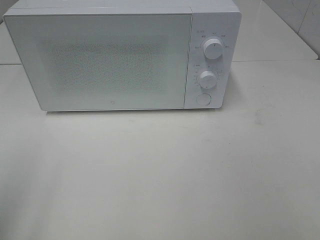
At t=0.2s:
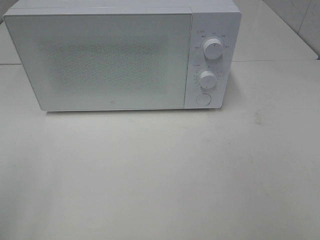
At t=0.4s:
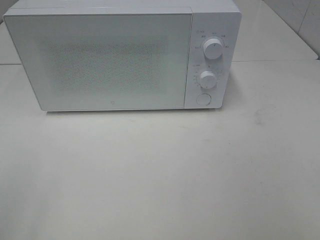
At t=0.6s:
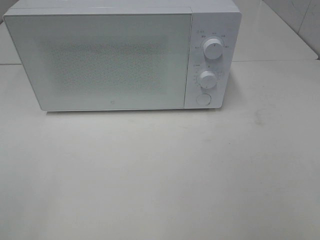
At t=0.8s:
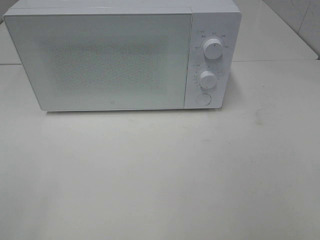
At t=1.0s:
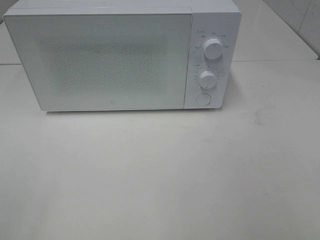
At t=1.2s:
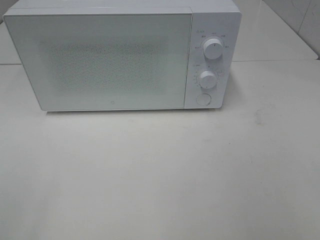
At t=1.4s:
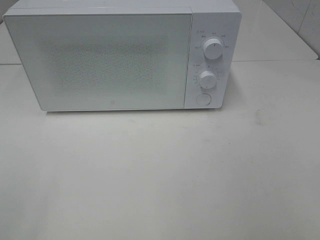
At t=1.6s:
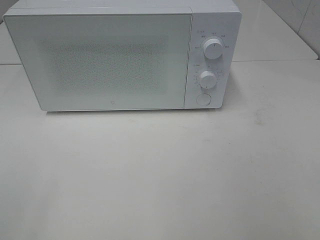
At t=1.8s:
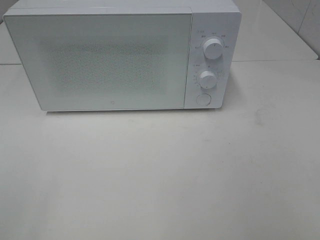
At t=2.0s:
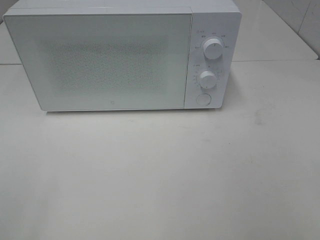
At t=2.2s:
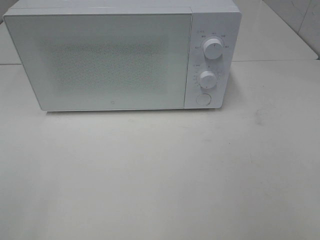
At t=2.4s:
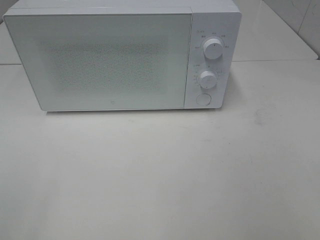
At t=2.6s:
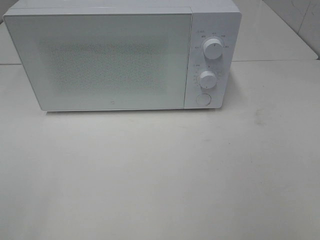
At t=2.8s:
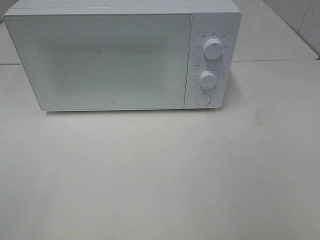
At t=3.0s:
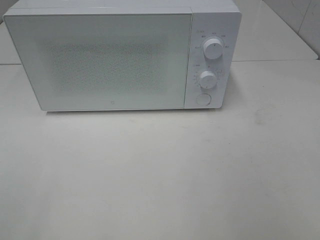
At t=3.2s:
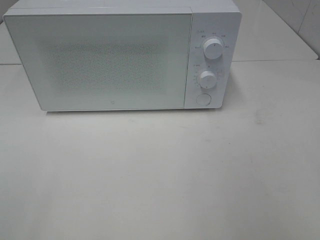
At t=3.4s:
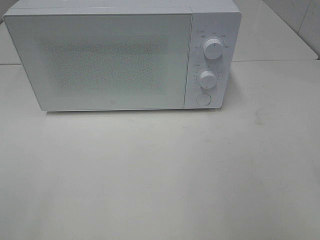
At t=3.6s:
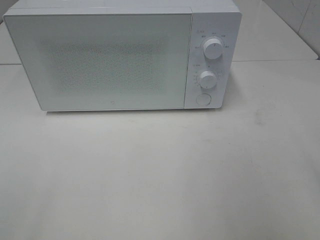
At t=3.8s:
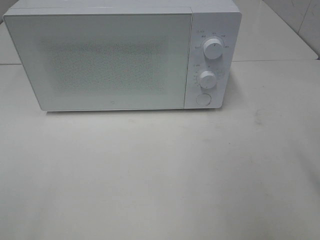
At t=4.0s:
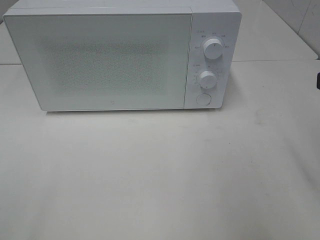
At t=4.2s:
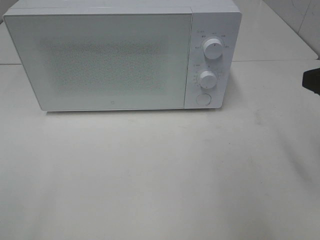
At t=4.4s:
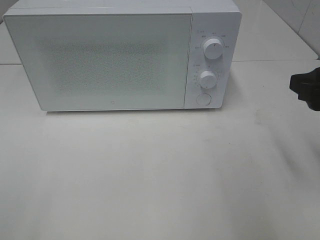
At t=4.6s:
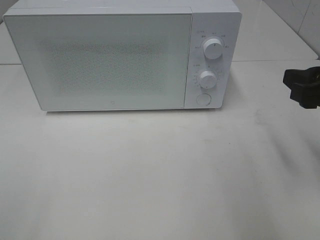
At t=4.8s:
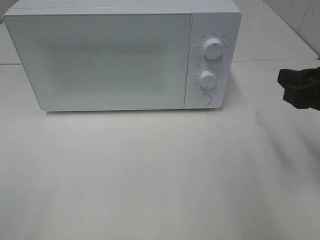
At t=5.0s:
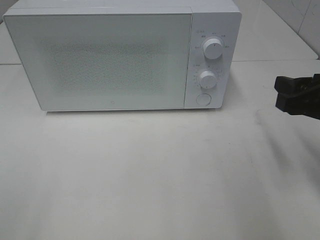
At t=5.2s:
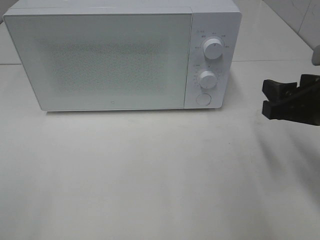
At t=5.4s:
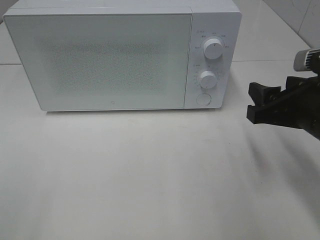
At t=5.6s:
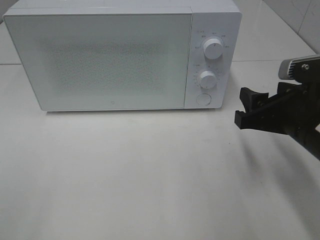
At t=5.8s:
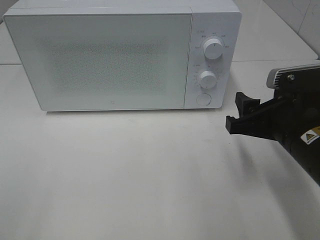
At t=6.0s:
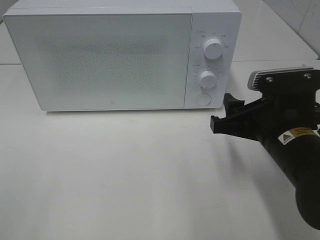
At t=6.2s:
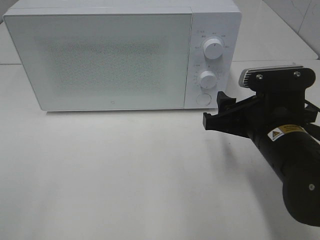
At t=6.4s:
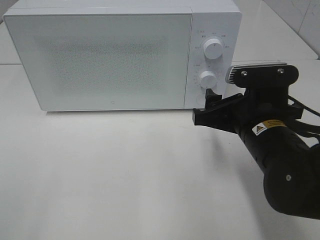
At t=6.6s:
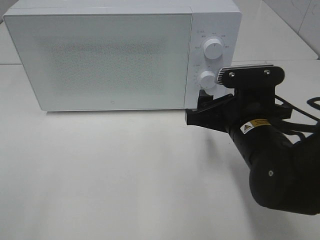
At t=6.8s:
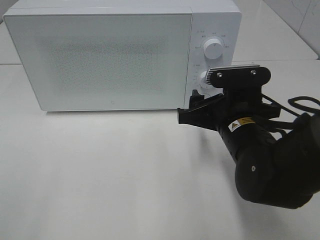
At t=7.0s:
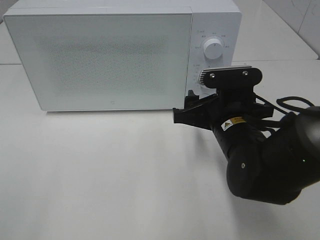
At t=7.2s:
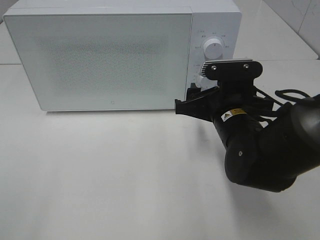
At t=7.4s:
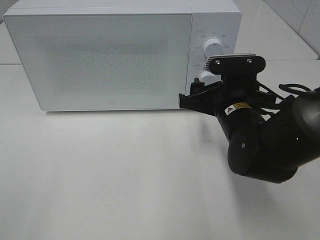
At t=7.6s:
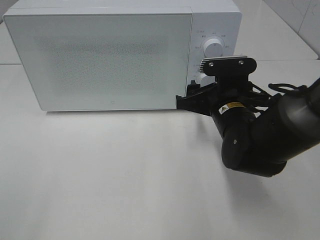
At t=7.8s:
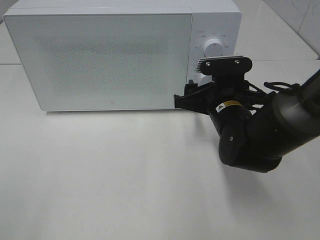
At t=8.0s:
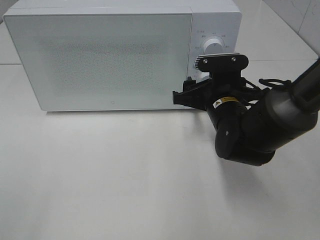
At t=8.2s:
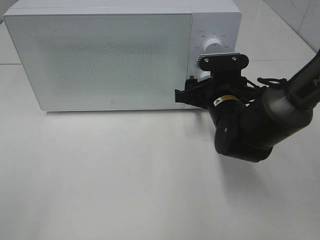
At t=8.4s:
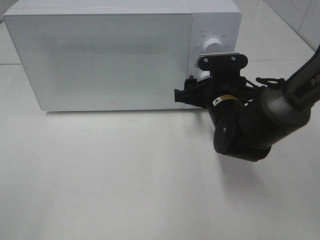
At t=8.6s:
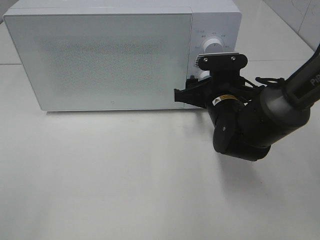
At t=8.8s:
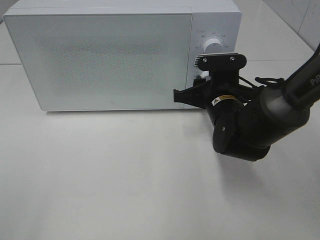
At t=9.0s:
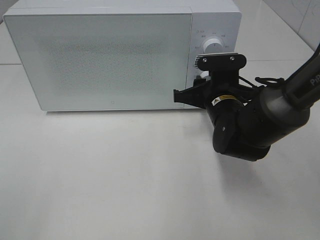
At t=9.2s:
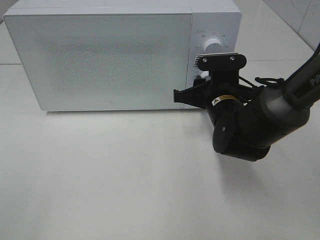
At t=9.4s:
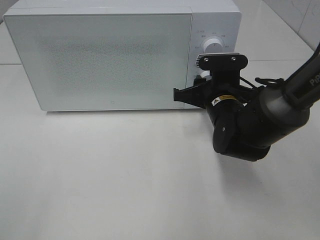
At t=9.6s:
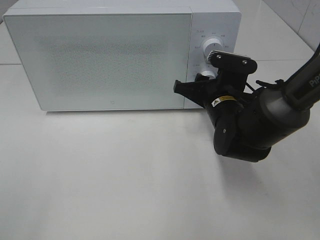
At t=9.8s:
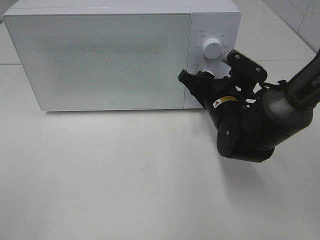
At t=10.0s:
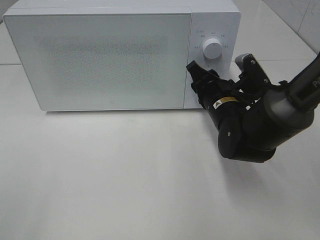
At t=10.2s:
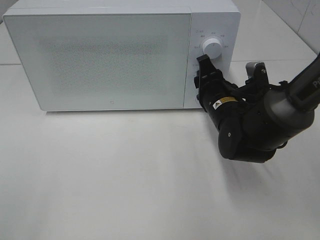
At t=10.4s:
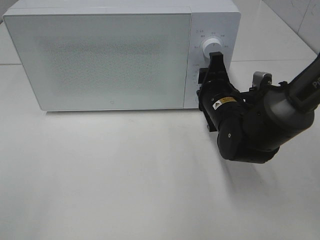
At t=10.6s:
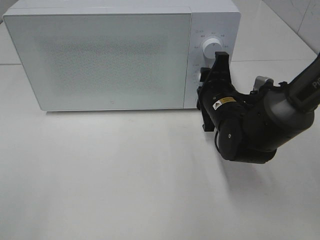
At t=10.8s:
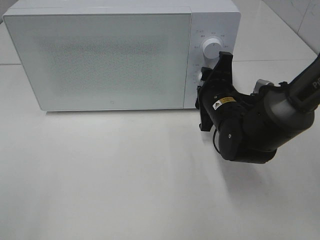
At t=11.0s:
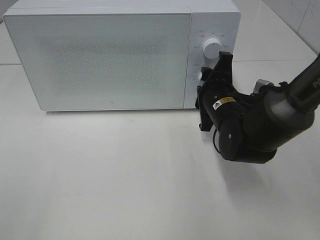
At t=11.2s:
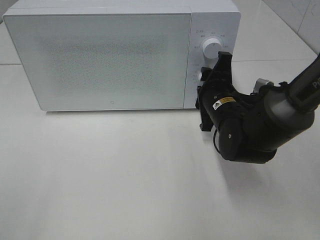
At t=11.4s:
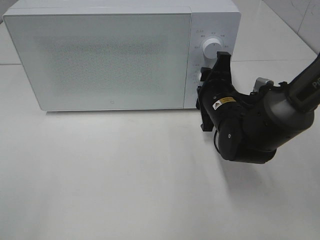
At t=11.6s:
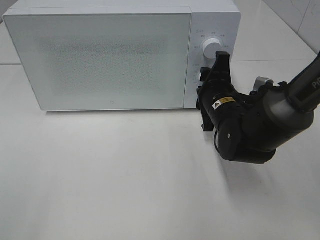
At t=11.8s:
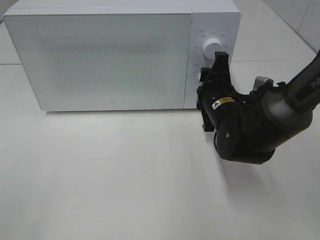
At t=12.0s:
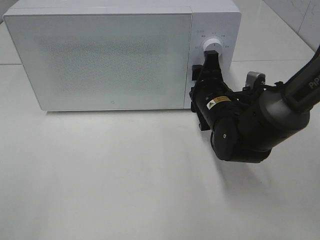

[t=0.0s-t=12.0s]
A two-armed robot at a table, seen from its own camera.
Task of the whole recording: Heat the burger.
t=3.0s to t=4.4s: The right gripper shifts some 15 cm forward and downward.
t=4.4s to t=6.0s: The right gripper goes approximately 10 cm to the left and downward.
t=6.0s to t=7.6s: The right gripper heads forward, covering approximately 10 cm.
t=7.6s to t=9.0s: The right gripper closes.
t=10.4s to t=12.0s: The grippers move only a little.

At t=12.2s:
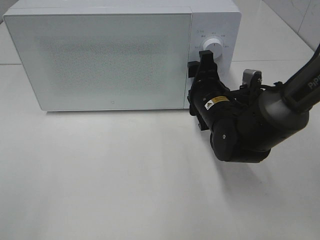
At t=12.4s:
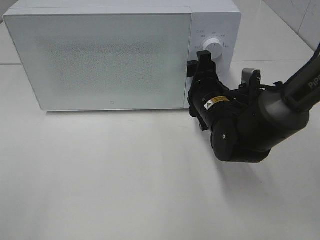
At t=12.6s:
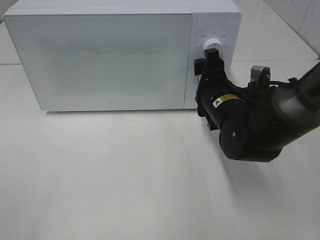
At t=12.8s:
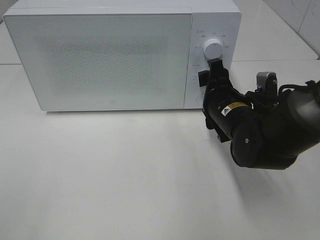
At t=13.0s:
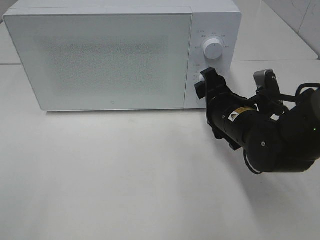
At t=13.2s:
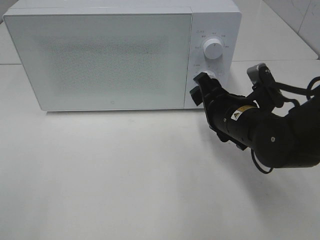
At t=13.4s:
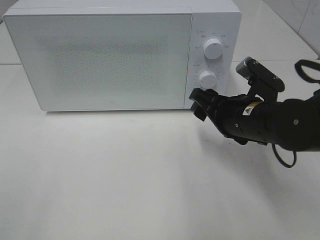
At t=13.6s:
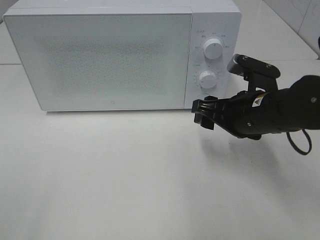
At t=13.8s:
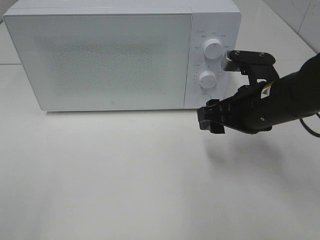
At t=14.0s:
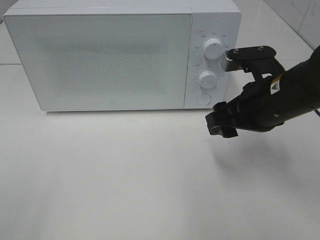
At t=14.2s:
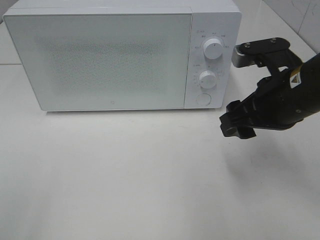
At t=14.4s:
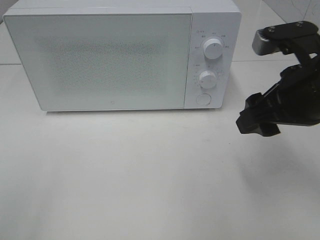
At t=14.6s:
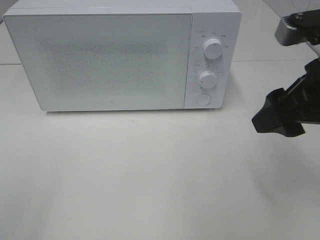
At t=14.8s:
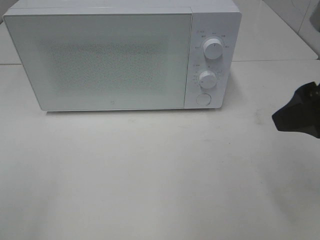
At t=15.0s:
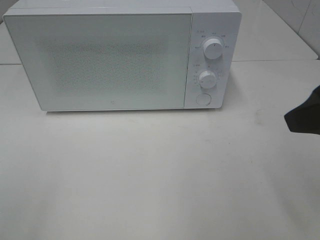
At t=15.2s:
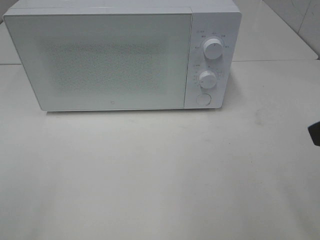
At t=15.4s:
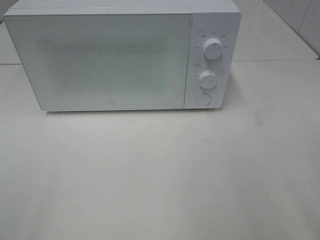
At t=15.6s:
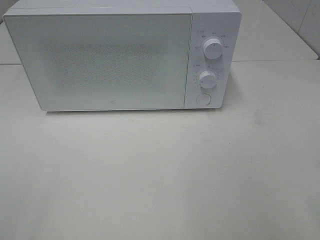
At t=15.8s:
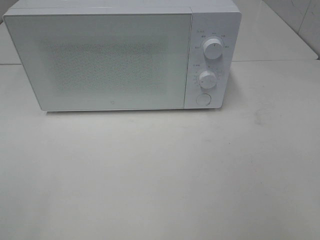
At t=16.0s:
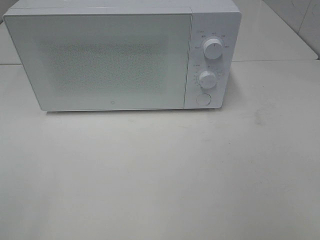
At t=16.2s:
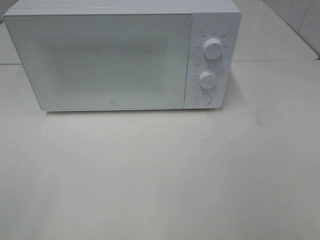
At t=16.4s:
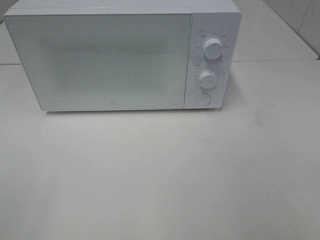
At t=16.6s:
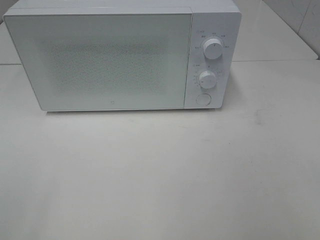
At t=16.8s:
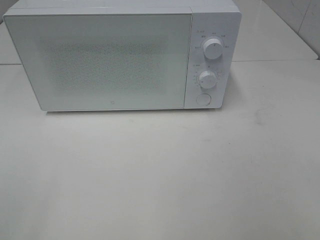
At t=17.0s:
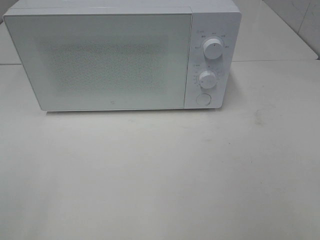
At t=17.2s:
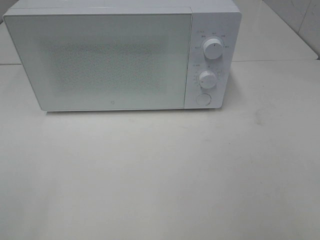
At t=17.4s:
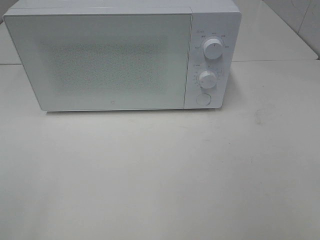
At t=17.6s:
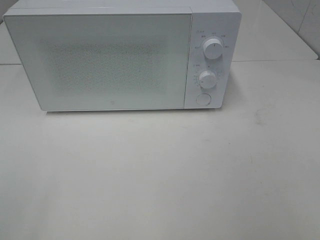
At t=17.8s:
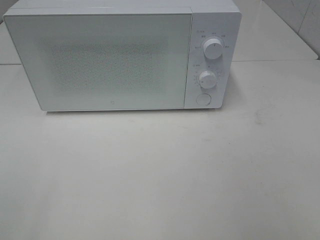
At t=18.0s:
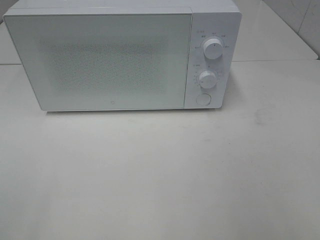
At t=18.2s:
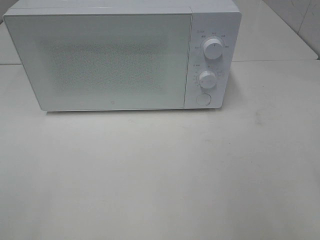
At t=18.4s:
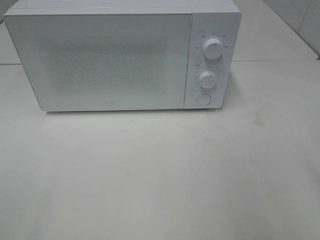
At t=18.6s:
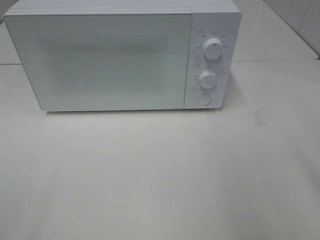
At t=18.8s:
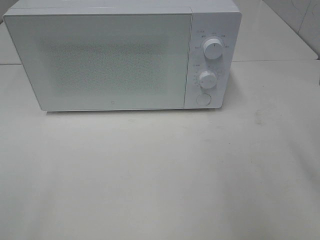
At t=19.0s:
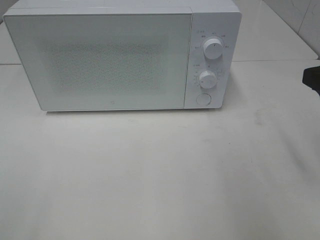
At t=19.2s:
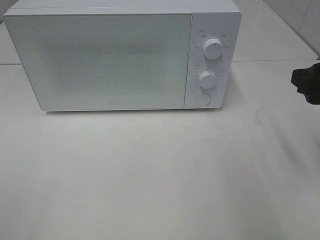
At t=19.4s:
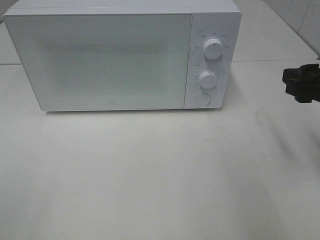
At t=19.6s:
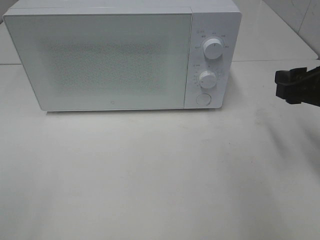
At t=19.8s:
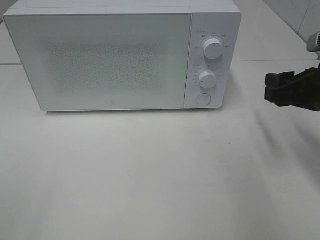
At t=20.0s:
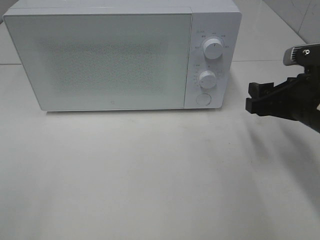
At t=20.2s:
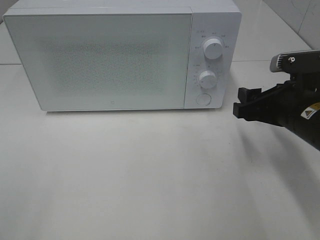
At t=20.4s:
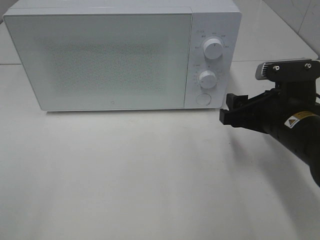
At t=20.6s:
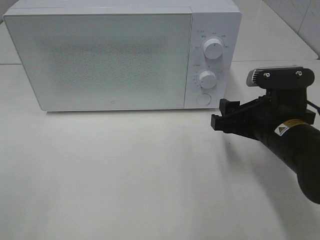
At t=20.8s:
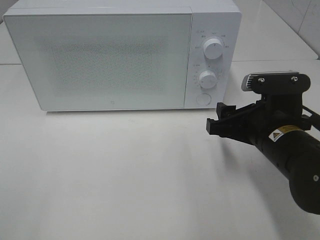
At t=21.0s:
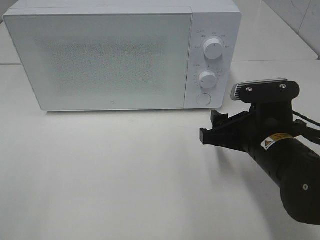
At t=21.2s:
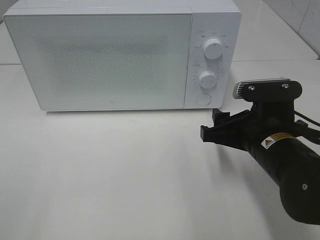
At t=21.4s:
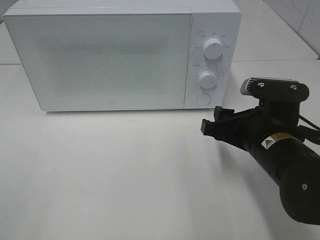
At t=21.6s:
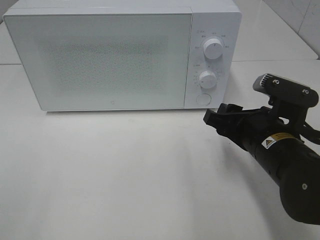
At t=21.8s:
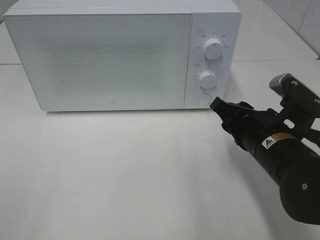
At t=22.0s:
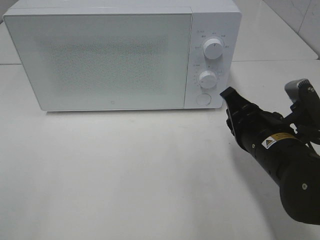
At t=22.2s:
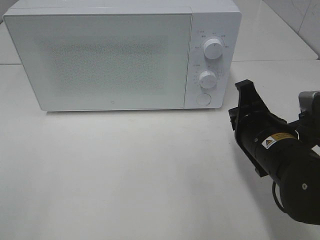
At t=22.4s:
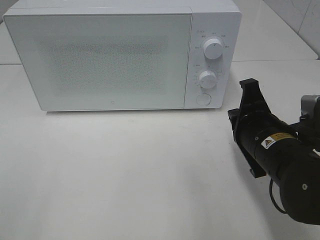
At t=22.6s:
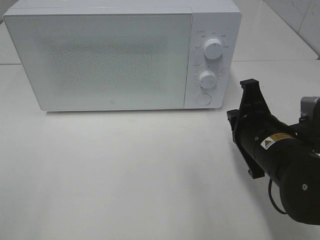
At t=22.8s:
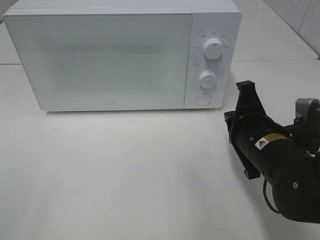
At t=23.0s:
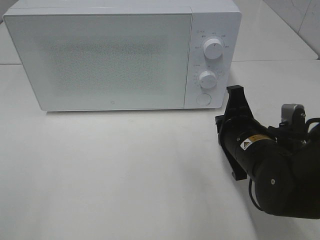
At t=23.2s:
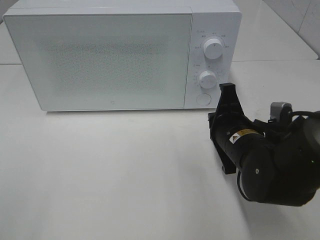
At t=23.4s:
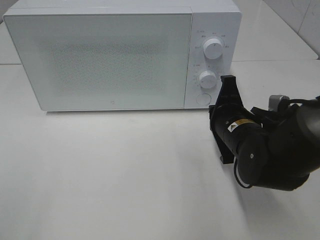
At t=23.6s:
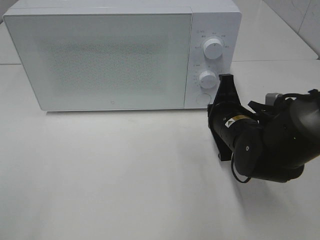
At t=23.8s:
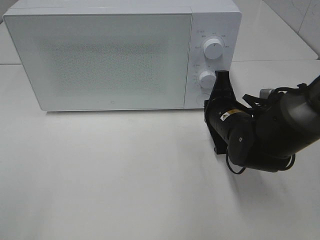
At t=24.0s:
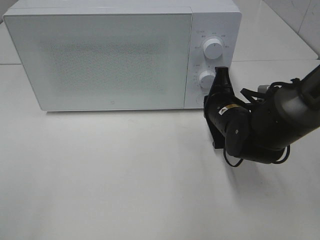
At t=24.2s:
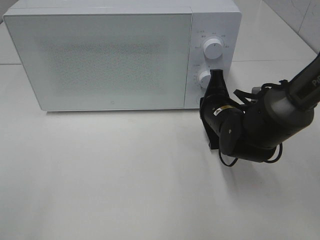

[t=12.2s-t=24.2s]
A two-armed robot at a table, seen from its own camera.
Task of the whole recording: Heat the burger.
t=12.2s to t=13.8s: The right gripper moves upward, backward and to the right, about 10 cm.
t=13.8s to t=15.2s: The right gripper travels backward, upward and to the right by approximately 20 cm.
t=18.2s to t=19.8s: The right gripper heads forward and downward, covering about 20 cm.
t=19.8s to t=21.2s: The right gripper shifts some 10 cm to the left and downward.
t=21.2s to t=22.6s: The right gripper closes up.
t=22.6s to t=24.2s: The right gripper shifts roughly 10 cm forward.
